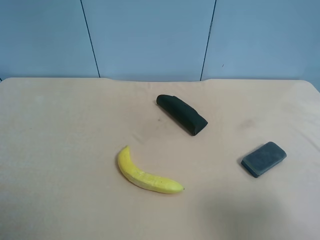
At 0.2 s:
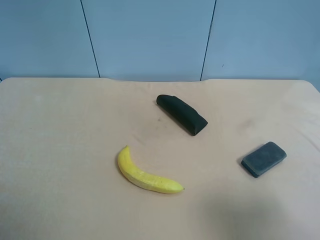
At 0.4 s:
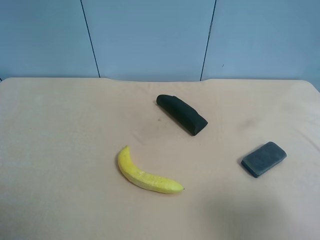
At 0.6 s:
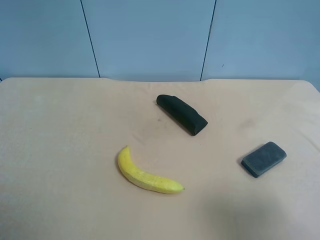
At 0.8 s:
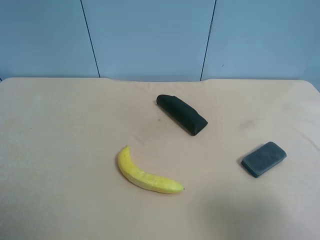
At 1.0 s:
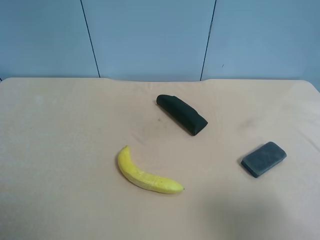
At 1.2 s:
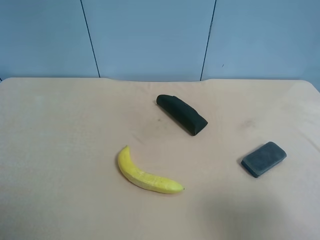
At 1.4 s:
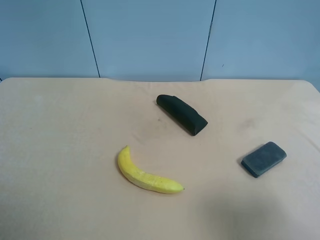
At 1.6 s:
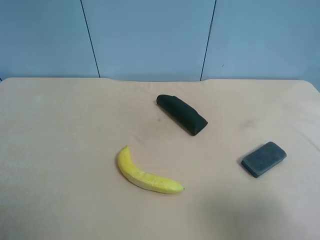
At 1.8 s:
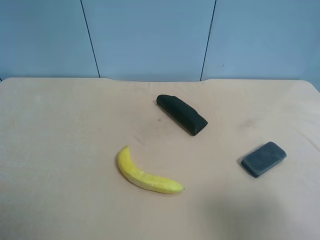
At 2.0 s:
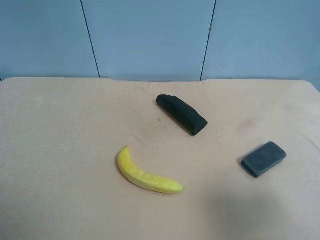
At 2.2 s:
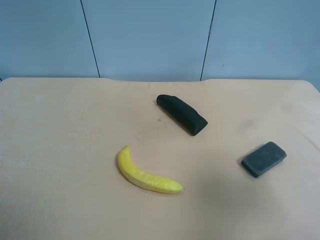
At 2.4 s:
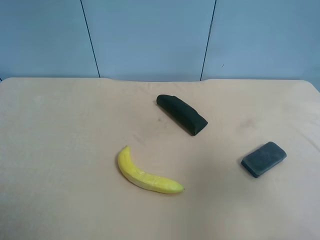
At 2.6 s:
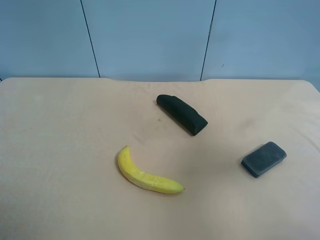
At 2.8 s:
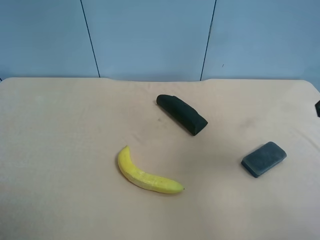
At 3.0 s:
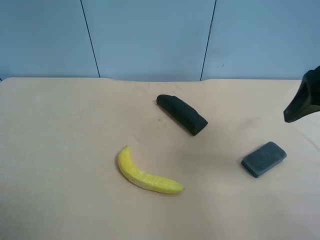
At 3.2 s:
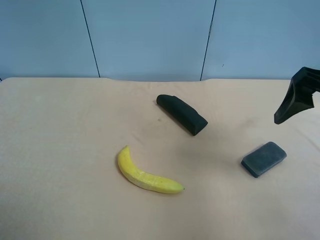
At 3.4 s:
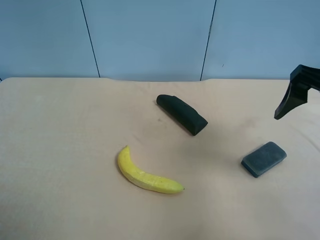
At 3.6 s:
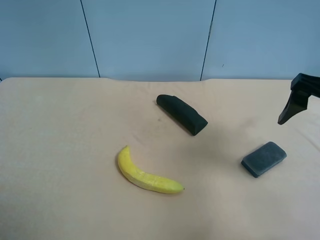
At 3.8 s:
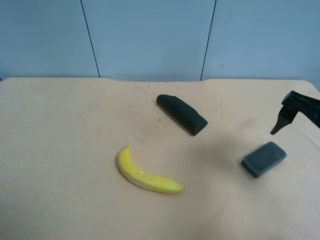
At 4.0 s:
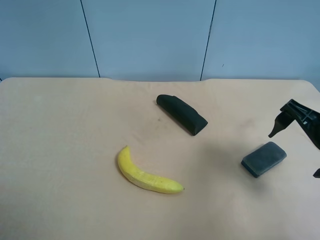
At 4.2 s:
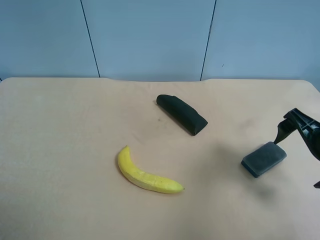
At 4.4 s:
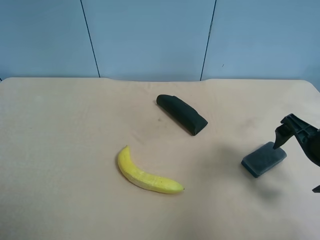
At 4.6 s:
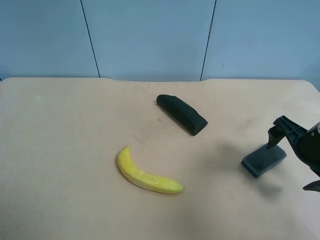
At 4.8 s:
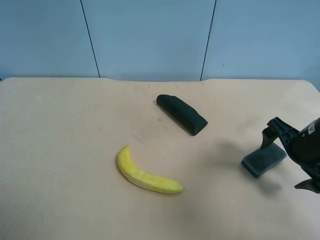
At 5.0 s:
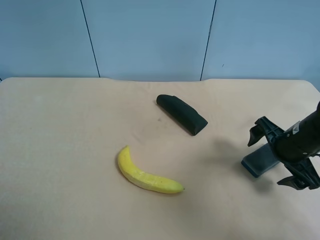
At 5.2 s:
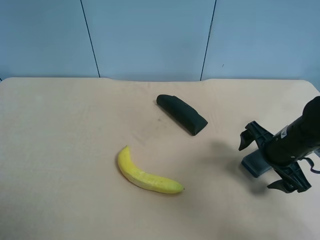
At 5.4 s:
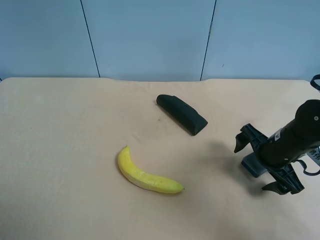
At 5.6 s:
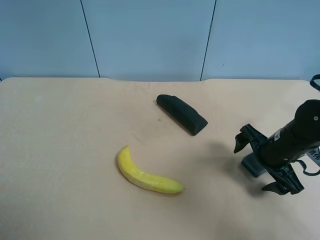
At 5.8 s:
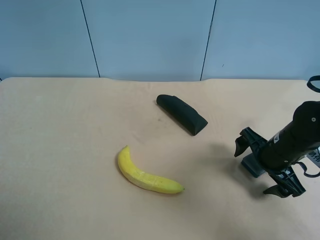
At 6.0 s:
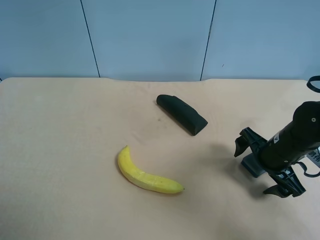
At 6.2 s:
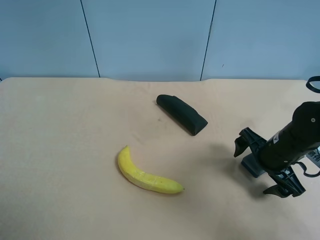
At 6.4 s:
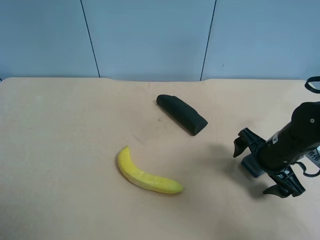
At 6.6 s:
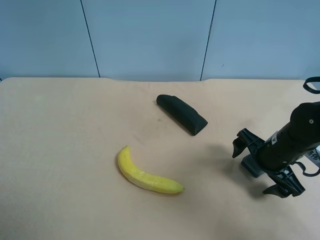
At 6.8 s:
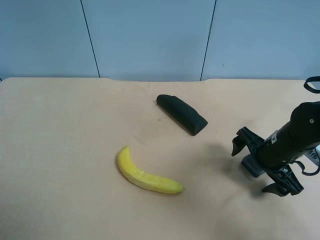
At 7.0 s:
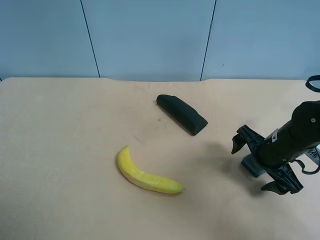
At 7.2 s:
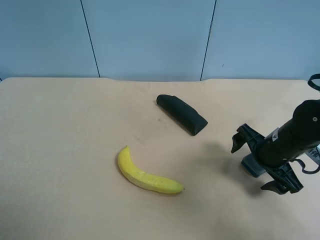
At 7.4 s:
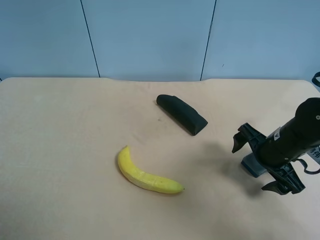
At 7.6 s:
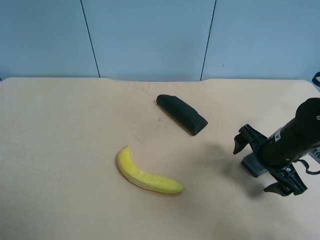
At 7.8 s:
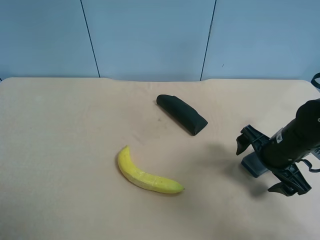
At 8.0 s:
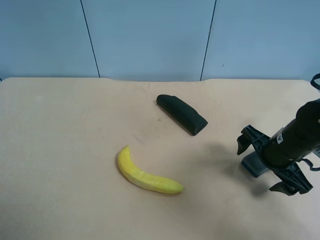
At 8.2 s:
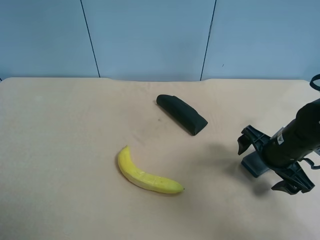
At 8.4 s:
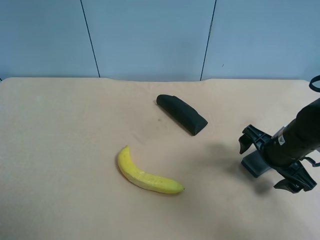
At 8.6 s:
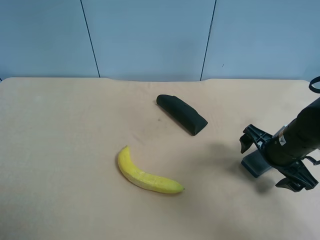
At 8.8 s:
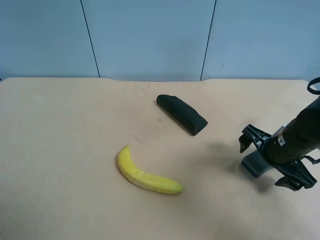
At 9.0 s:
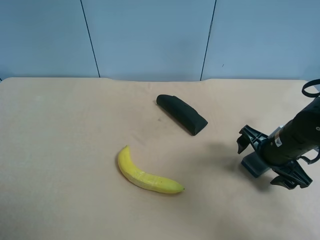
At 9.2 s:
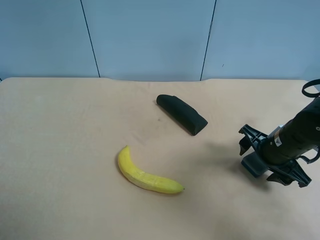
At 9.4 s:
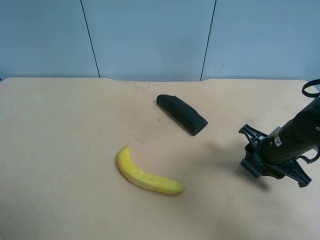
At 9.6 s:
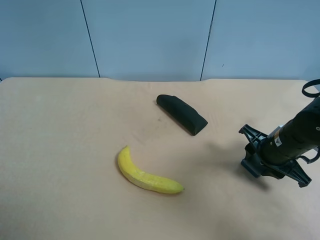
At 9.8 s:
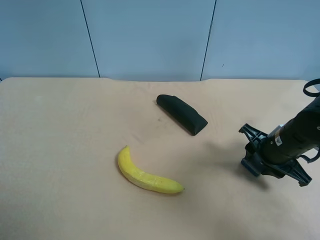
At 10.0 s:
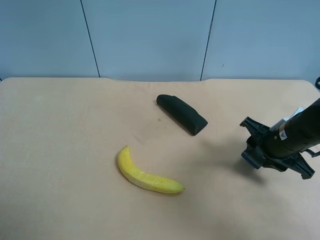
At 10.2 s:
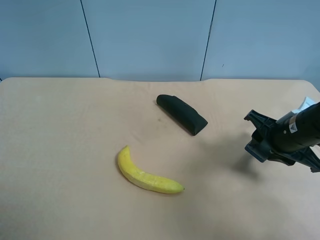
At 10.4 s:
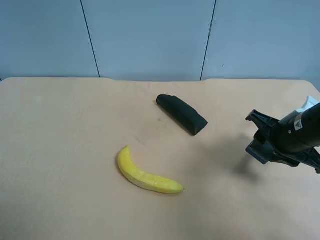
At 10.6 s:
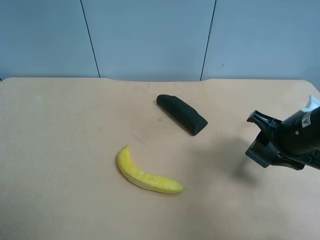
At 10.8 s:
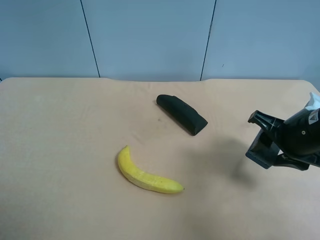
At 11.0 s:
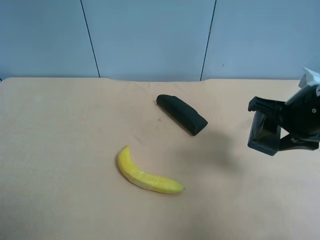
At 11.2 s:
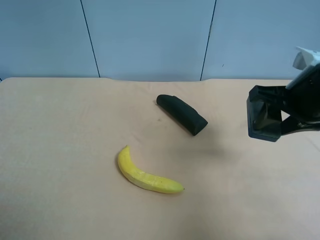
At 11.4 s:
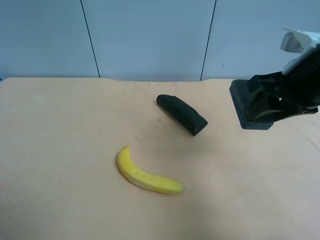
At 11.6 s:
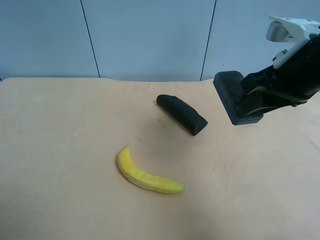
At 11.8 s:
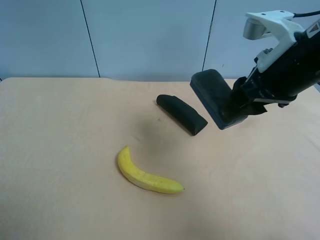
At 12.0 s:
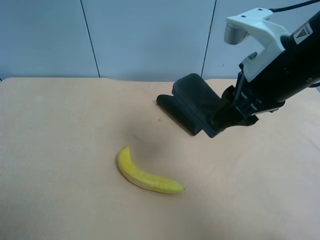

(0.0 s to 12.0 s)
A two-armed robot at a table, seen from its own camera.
Task of the whole recording: use the right gripper to pick up the item and transfer it from the right gripper to the left gripper.
0.0 s - 1.6 s: Both grippers stay put.
1.6 s - 3.0 s: The right gripper shifts about 15 cm forward.
3.0 s - 4.4 s: The right gripper heads downward, covering about 15 cm.
4.4 s - 6.0 s: The right gripper heads downward, covering some 5 cm.
6.0 s - 9.0 s: The grippers make only small movements.
9.0 s - 10.4 s: The right gripper shifts approximately 5 cm upward, and closes.
10.4 s - 12.0 s: The right gripper goes about 15 cm upward and to the left.

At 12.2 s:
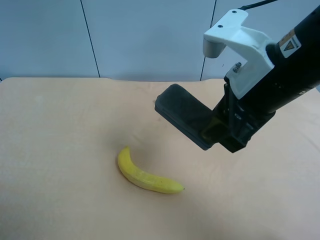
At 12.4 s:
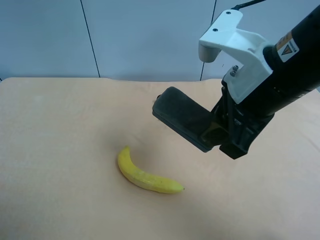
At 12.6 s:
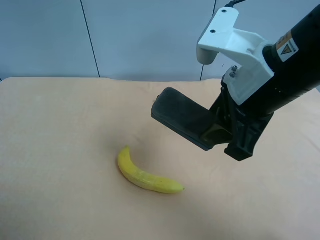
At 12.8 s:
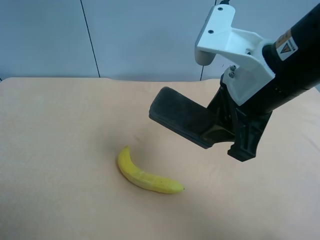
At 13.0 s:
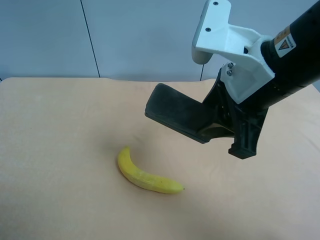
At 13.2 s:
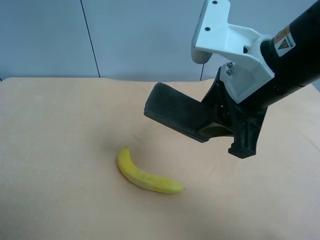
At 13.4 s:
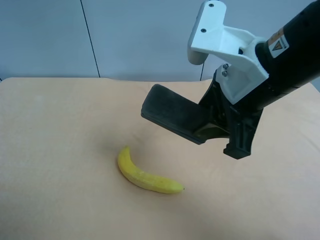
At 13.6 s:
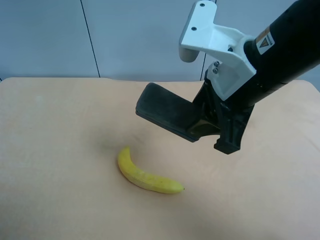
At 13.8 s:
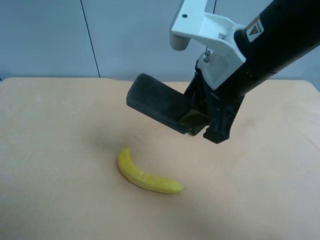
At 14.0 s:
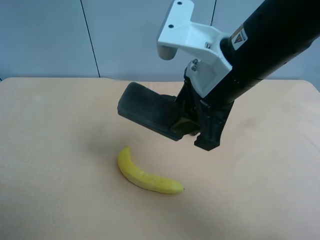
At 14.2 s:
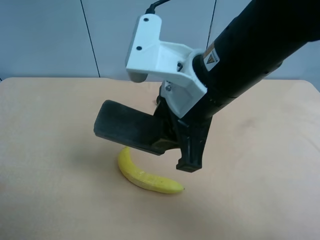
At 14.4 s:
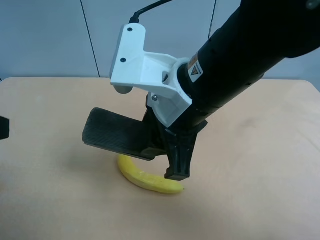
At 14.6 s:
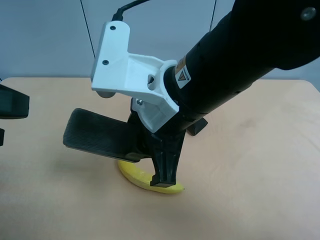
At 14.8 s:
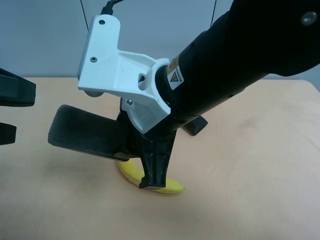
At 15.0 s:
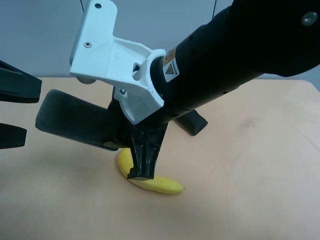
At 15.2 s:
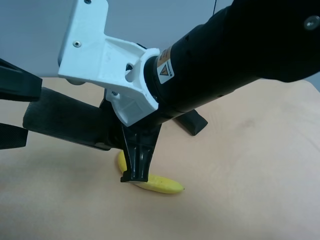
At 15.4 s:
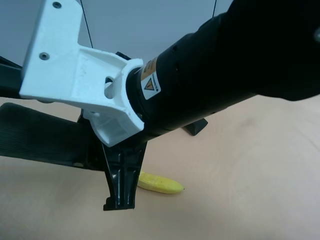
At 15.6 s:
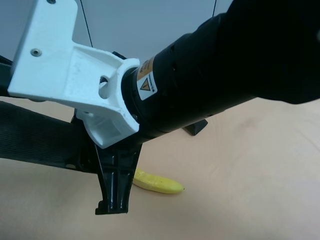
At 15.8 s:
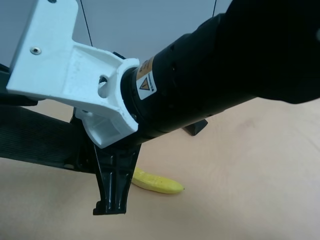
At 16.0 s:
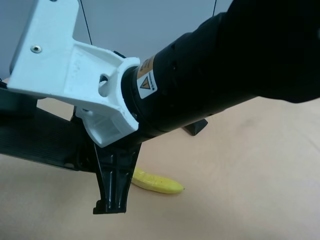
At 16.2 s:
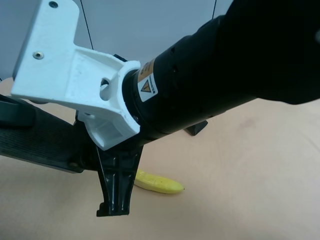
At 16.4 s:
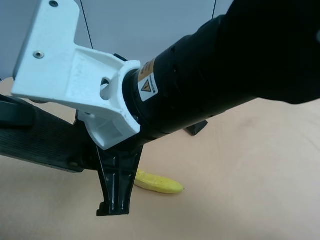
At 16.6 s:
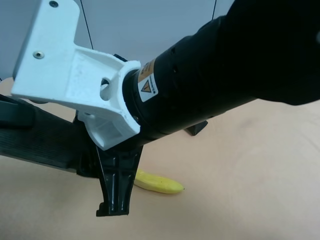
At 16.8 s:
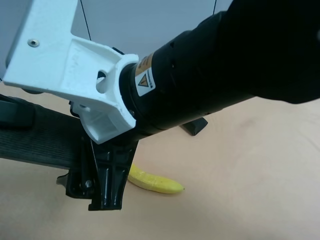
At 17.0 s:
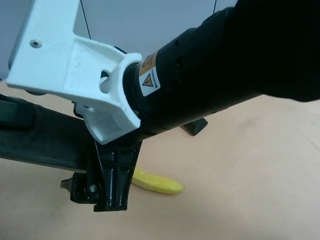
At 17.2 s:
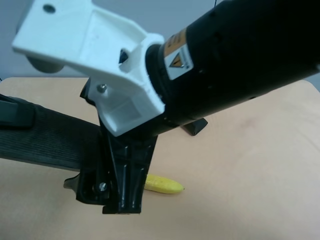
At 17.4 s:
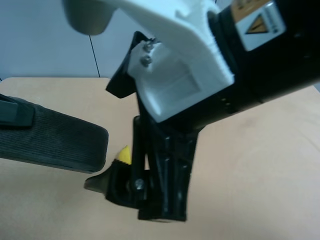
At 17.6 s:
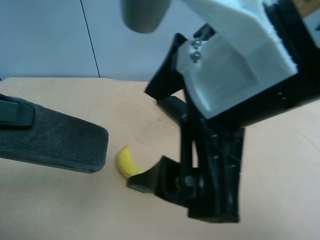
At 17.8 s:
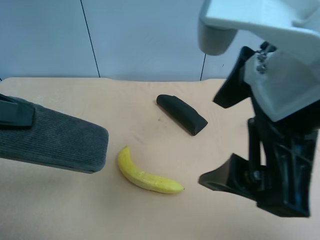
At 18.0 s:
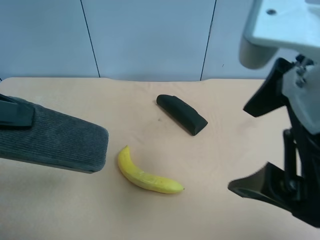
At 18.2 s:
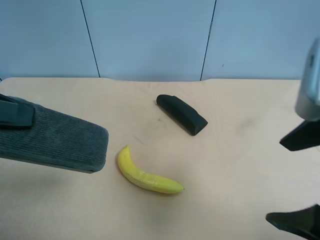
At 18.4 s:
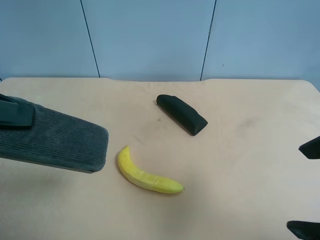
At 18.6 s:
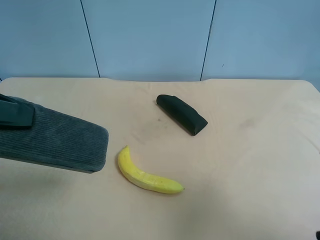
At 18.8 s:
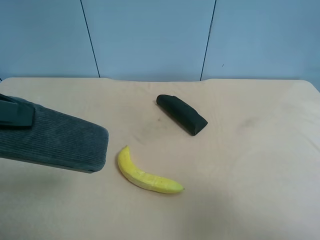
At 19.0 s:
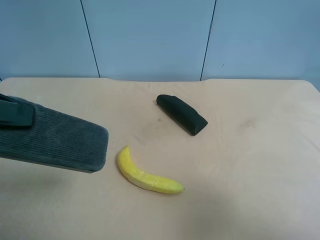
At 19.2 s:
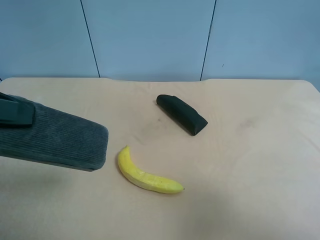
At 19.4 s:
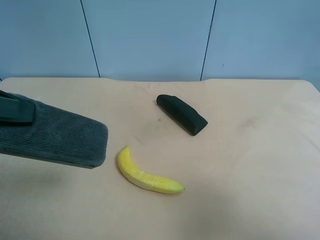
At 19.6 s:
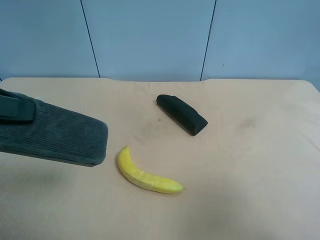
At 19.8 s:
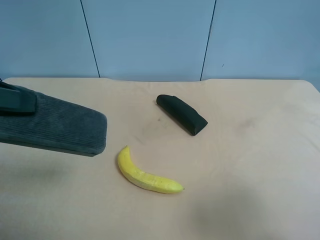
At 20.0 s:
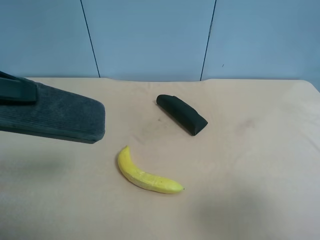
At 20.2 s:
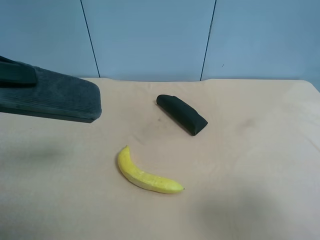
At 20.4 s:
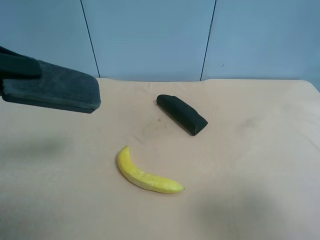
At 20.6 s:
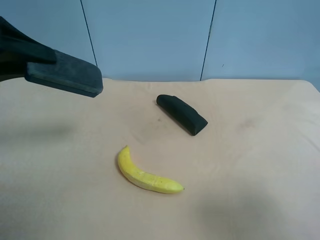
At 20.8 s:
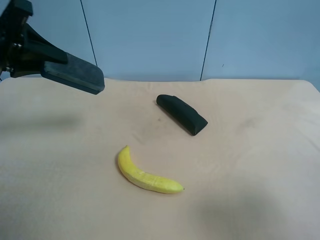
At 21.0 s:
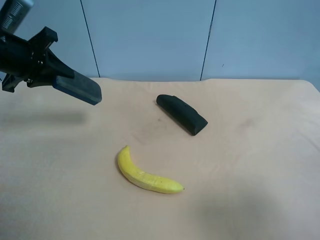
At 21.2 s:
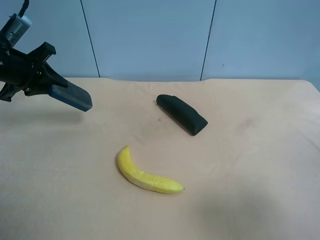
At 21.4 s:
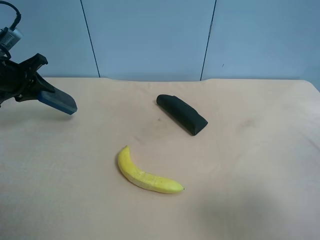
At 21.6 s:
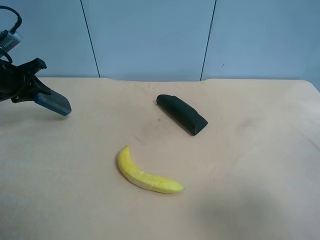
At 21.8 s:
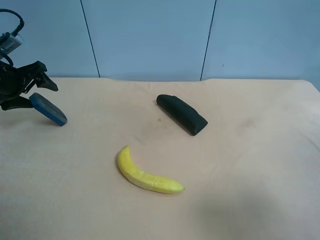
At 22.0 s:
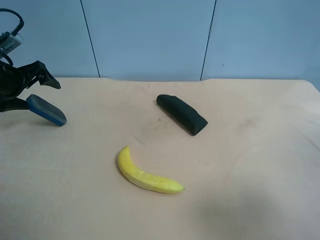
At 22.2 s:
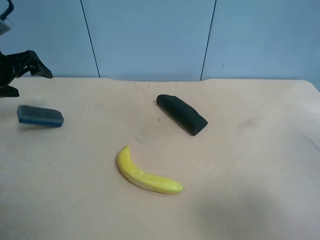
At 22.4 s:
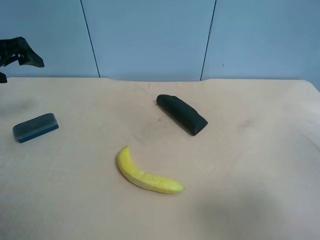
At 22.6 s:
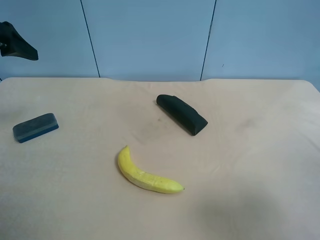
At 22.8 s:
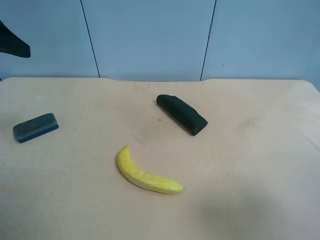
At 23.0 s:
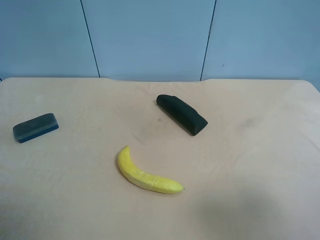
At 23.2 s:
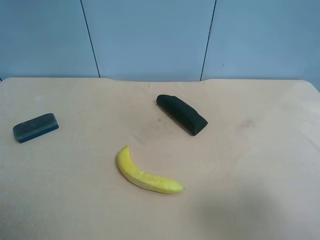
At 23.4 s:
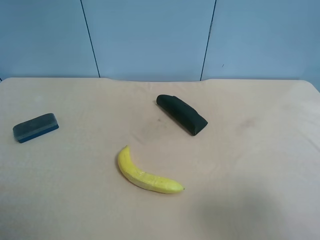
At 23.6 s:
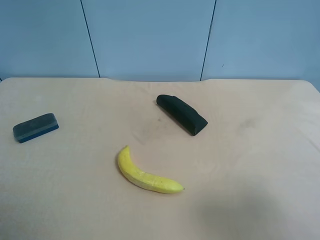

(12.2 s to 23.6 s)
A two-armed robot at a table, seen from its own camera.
Task of the whole recording: use the right gripper to pick up the item and transfer it from the right gripper to the left gripper.
13.6 s - 15.0 s: The left gripper goes approximately 15 cm forward and to the right, while the right gripper goes approximately 10 cm to the left.
15.0 s - 16.4 s: The left gripper closes its fingers.
16.4 s - 17.8 s: The right gripper goes approximately 15 cm to the right and upward, and opens.
17.8 s - 19.4 s: The right gripper moves to the right, backward and downward, roughly 20 cm.
19.4 s - 20.8 s: The left gripper travels forward by roughly 15 cm.
20.8 s - 22.2 s: The left gripper goes roughly 15 cm to the left, downward and forward, and opens.
22.2 s - 23.6 s: The left gripper shifts some 30 cm backward.
